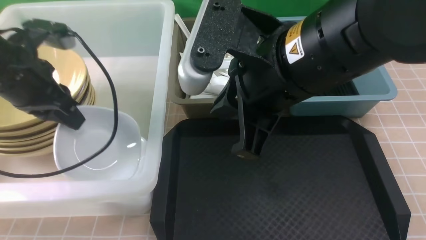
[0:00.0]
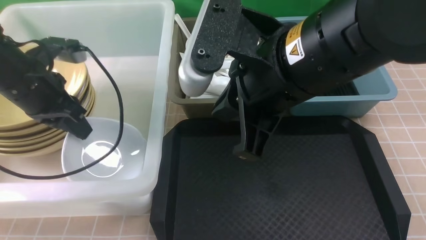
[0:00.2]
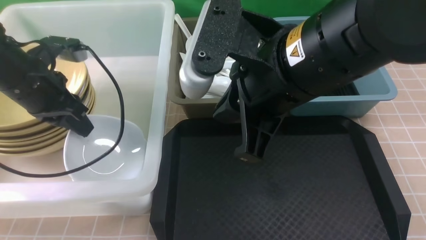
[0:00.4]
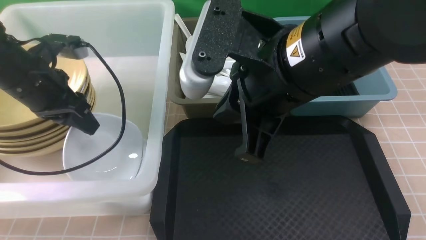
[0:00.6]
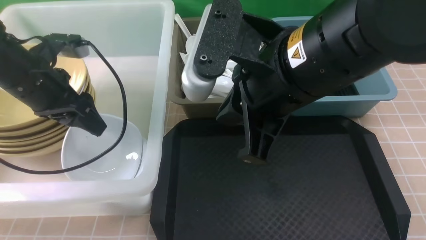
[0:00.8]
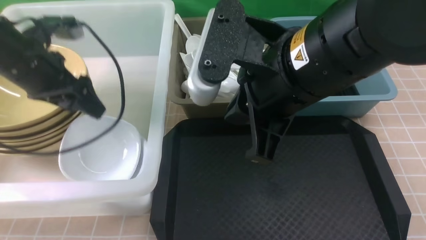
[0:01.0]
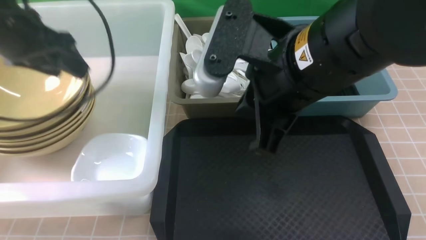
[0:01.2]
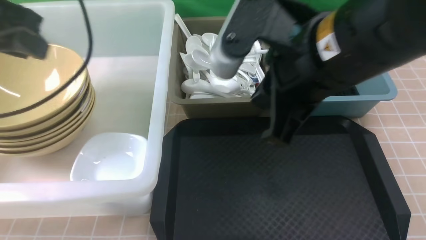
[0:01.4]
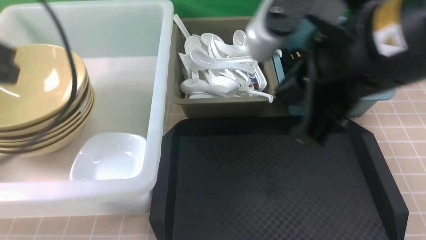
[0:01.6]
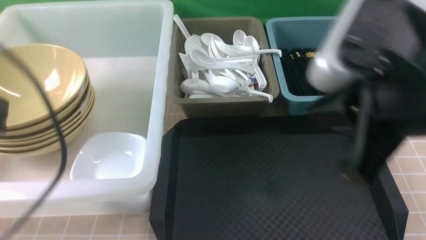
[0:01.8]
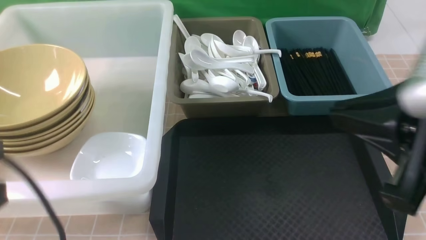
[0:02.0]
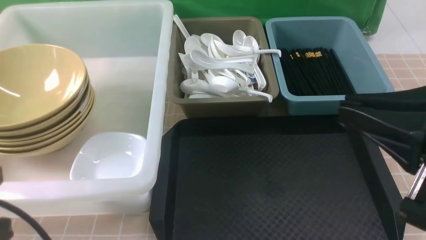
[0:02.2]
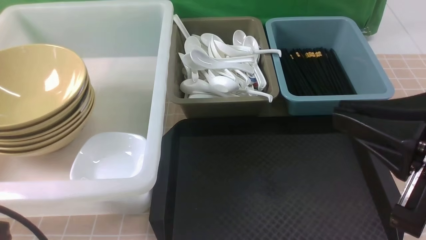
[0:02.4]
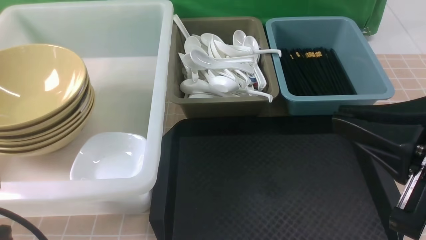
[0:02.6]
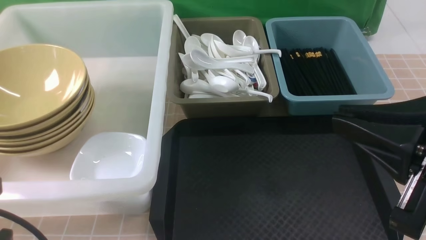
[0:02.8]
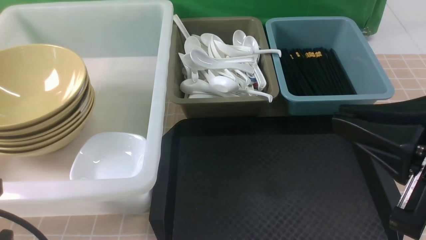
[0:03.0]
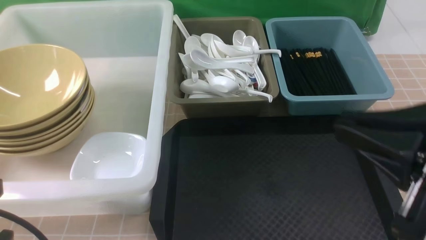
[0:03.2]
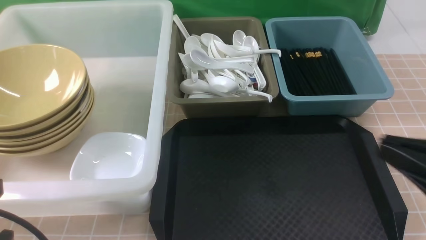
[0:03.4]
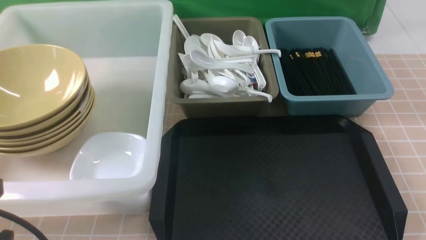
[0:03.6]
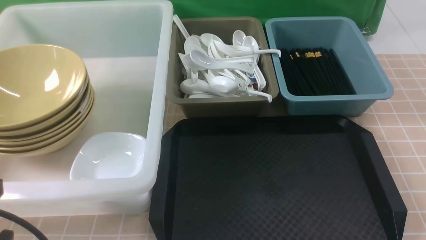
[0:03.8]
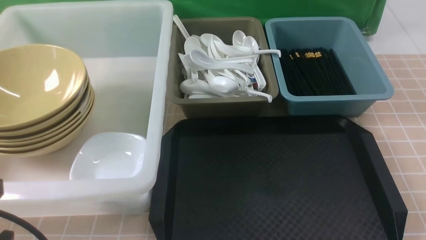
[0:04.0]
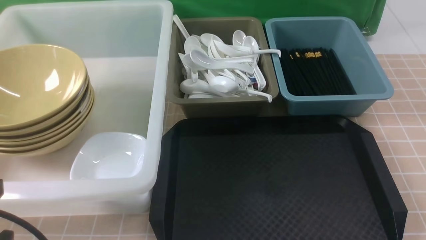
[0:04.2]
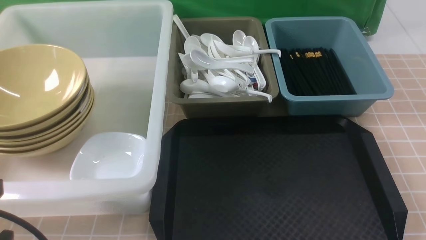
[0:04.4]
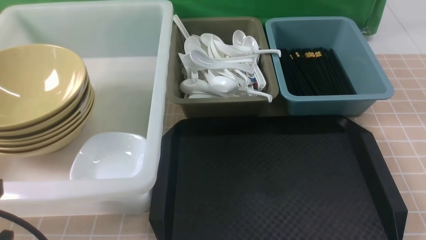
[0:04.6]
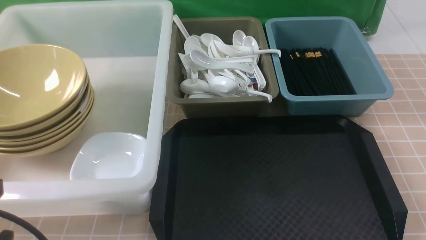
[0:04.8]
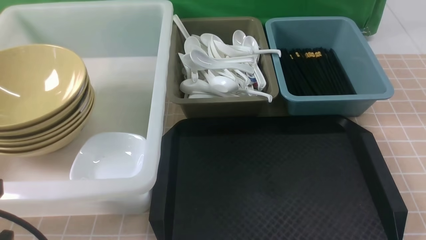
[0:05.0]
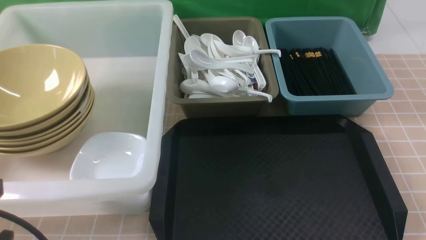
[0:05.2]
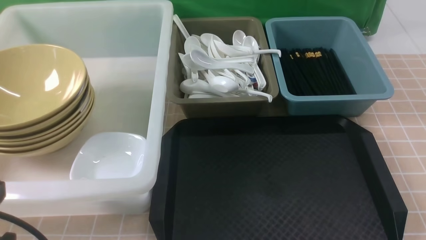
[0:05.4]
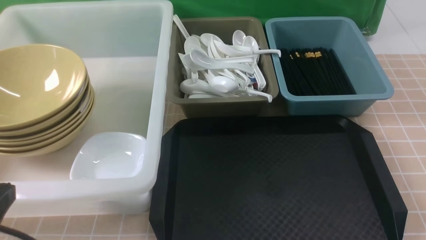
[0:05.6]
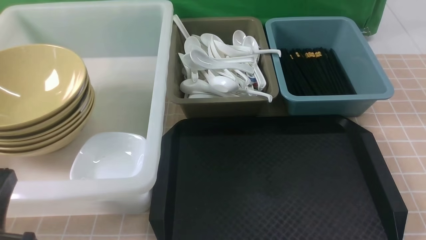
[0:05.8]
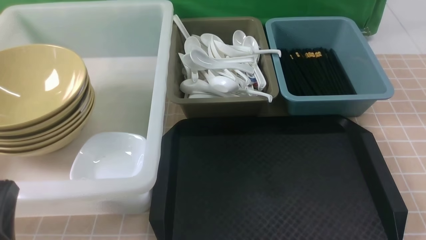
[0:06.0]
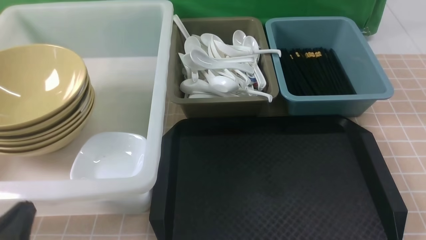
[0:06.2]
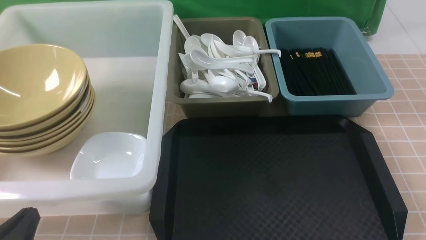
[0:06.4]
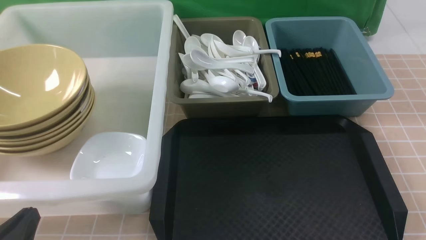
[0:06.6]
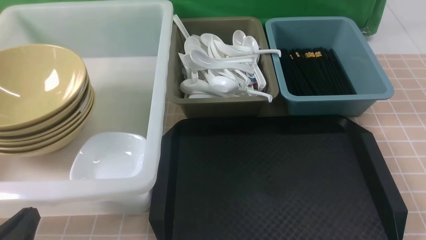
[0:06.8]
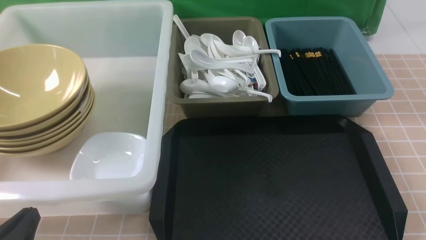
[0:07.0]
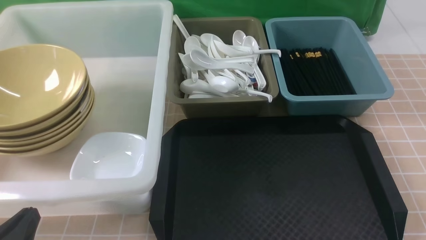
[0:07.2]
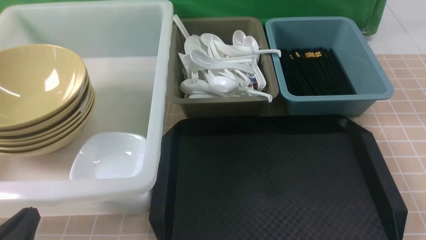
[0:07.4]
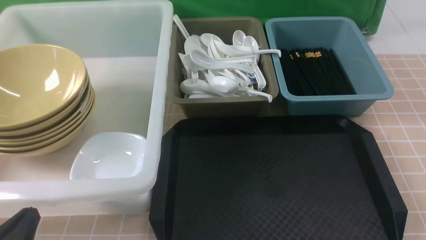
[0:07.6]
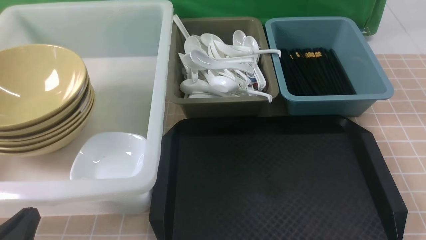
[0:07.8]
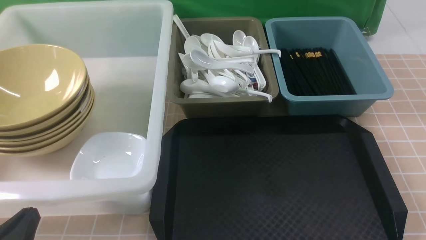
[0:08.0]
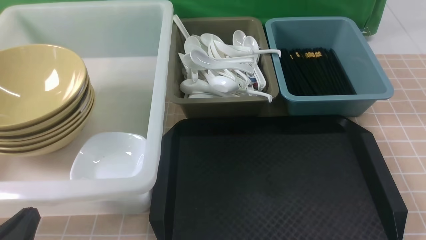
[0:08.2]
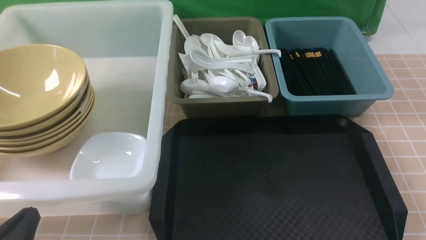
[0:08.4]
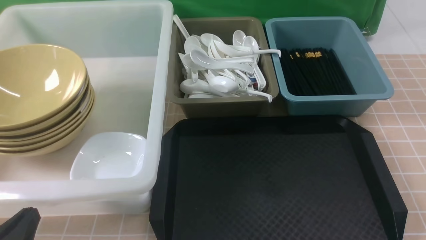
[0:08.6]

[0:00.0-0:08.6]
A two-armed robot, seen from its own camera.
Task of the whole recording: on brown table put chopsticks spoon bowls plates into blue grey white boxes.
Step, 0:00.0 to 0:01.4: use the left arm to put the plate into the large storage box on the left.
0:00.0 to 0:01.4: The left gripper heads upward, covering about 10 cm, and opens, then closes again.
0:01.4 to 0:02.8: The right gripper is displaced backward and to the right by some 15 cm. Meanwhile the left gripper travels backward and downward by roughly 20 cm.
0:02.8 to 0:04.4: The right gripper shifts approximately 20 cm downward and to the right.
0:04.4 to 0:05.8: The left gripper moves downward, roughly 5 cm.
0:05.8 to 0:07.2: The left gripper goes about 5 cm downward.
0:07.2 to 0:08.6: The two grippers keep their place.

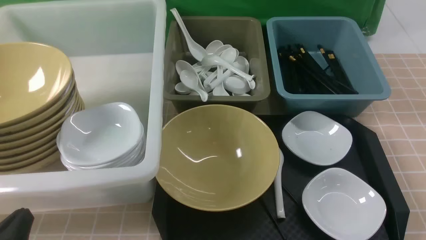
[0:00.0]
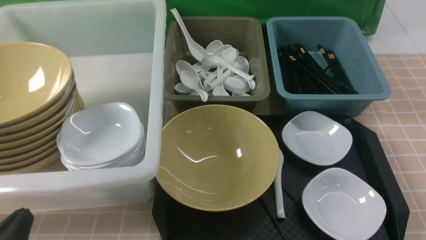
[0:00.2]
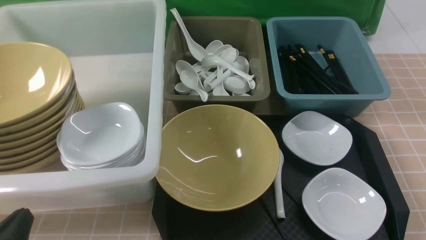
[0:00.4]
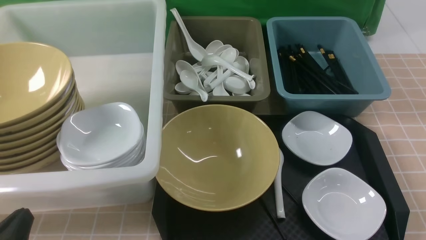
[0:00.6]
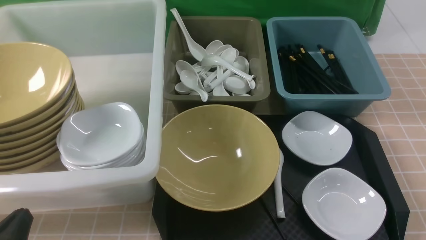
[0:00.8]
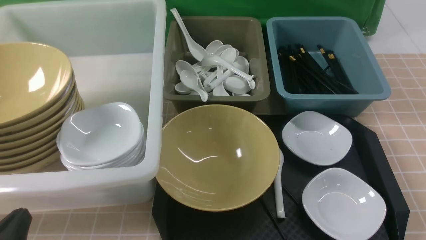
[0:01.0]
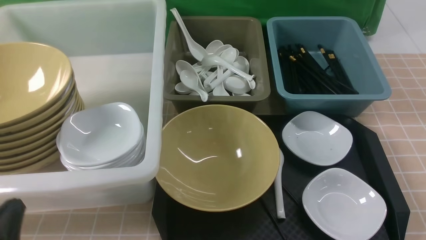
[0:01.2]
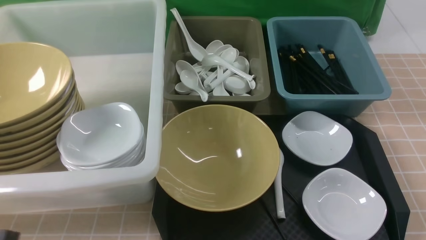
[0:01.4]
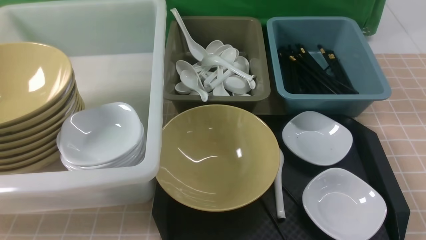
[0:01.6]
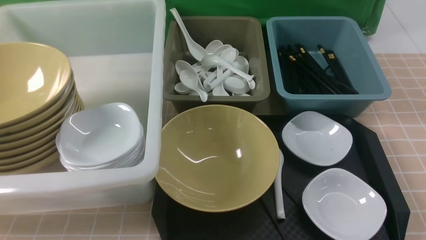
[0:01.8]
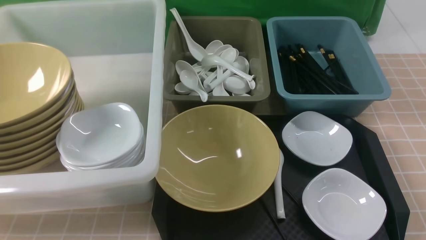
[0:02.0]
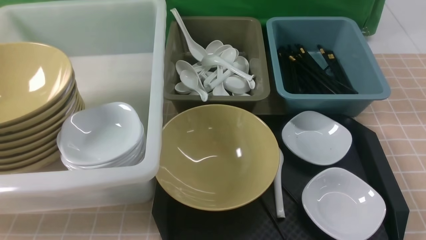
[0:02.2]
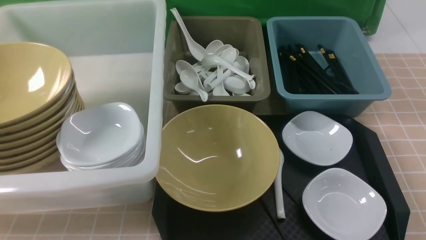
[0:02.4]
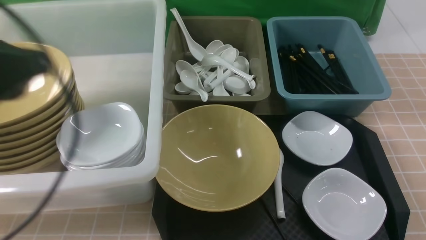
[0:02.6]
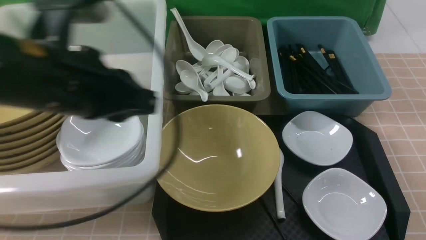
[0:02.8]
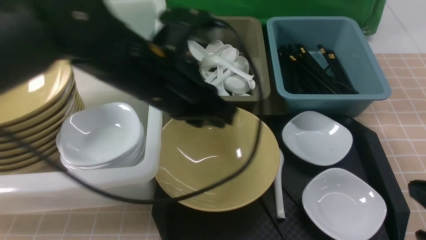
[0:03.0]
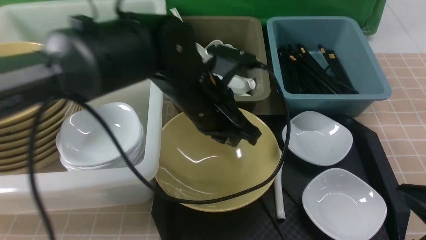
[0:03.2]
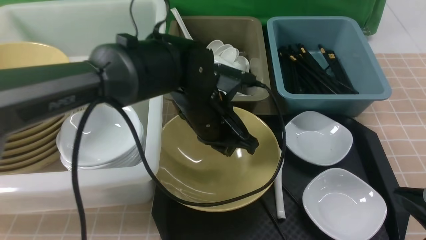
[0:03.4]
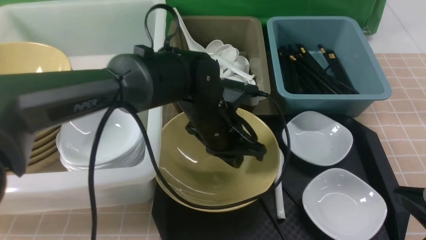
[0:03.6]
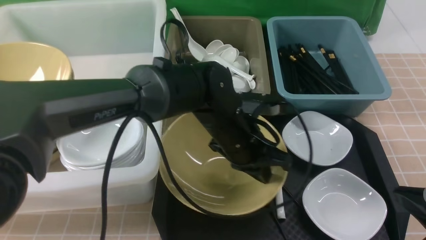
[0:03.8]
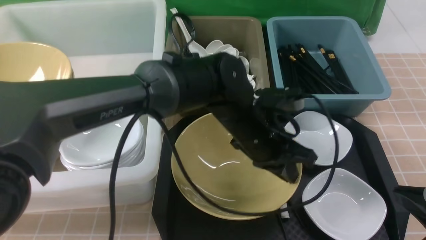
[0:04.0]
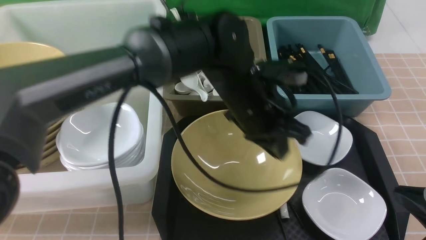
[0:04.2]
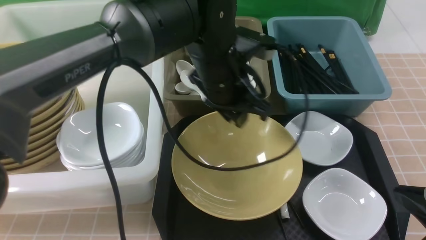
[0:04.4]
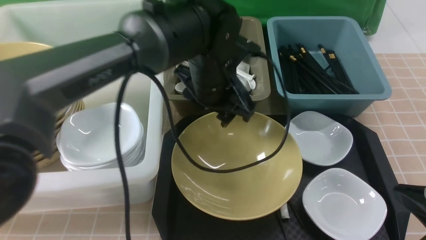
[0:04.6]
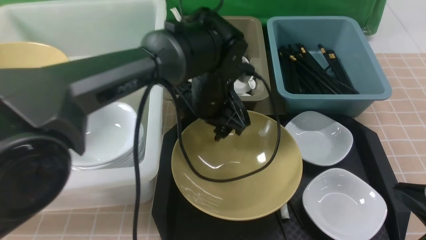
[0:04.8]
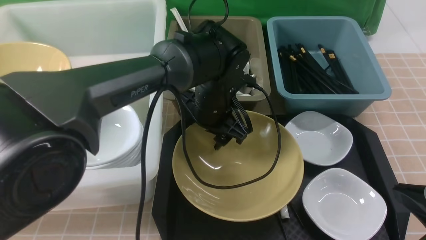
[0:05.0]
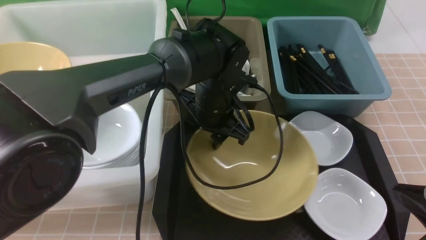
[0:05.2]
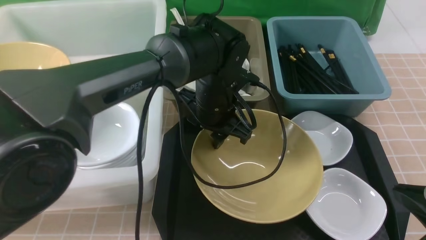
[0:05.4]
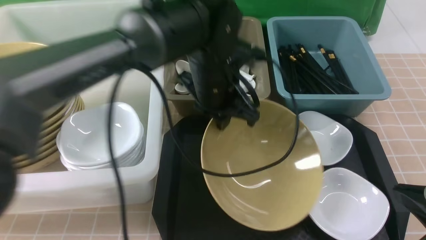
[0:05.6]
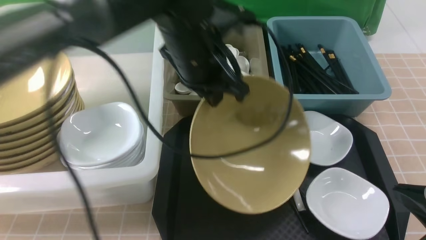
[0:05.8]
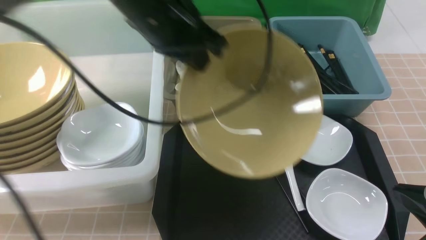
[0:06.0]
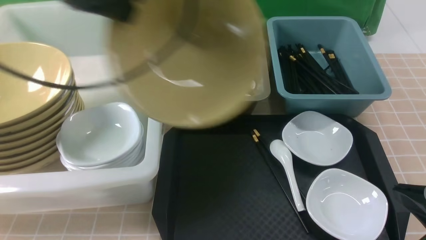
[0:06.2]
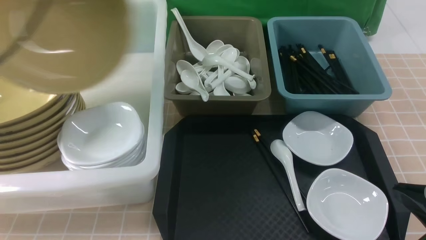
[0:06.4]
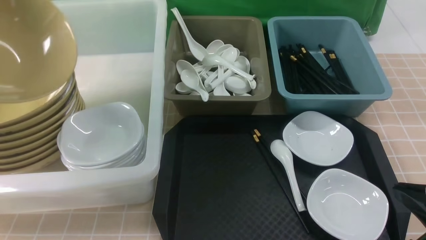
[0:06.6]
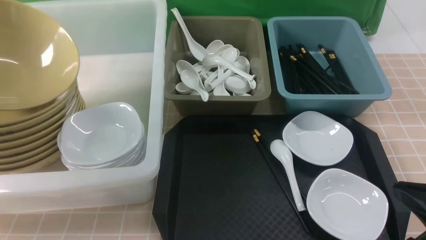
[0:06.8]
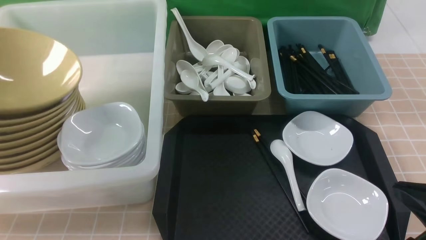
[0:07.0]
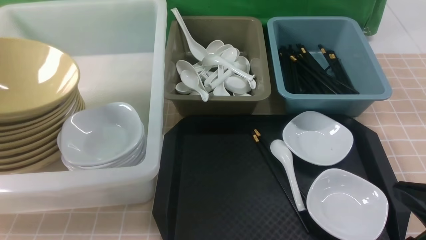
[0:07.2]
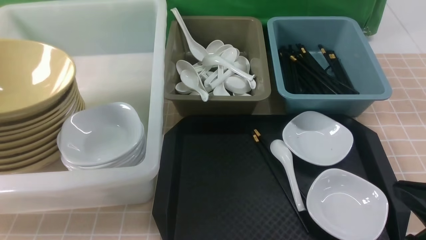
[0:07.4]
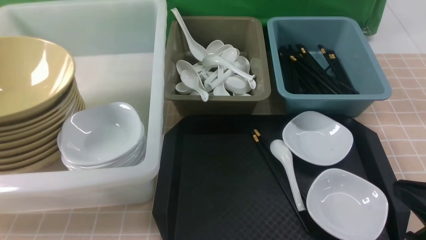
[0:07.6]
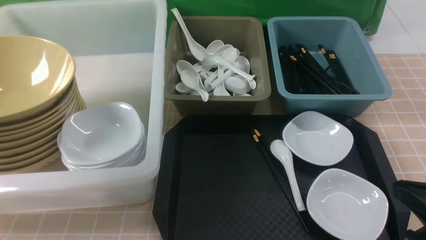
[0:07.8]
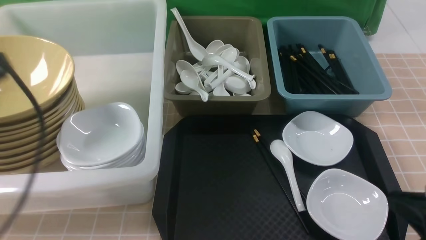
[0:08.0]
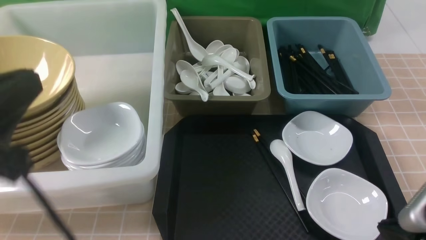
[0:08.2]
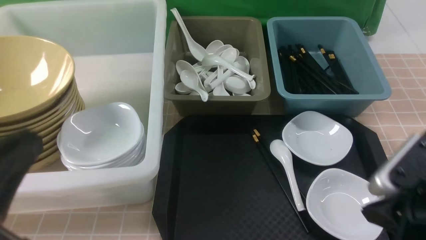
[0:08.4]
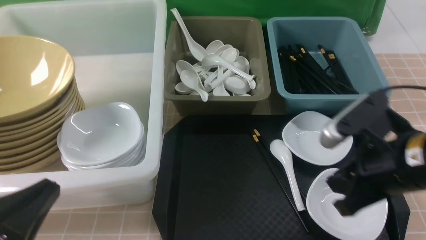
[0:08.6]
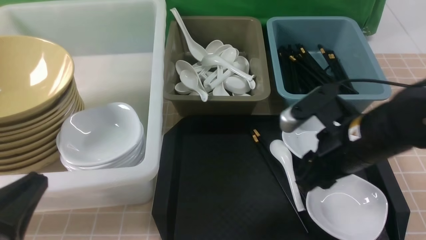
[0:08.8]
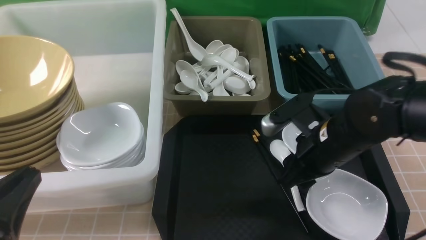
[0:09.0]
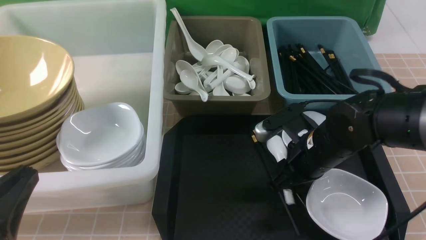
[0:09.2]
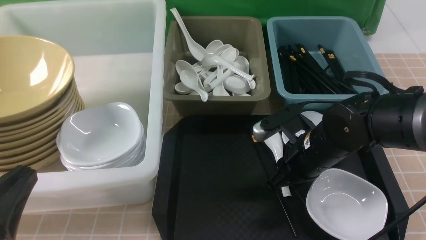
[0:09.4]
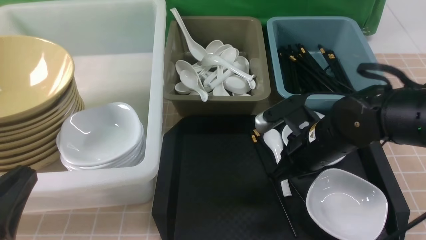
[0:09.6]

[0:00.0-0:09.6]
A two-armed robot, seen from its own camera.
Task of the whole recording: on brown table put chopsticks spoon bowls plates into blue grey white boxes.
Step, 0:00.0 to 0:05.8: use the left arm to grab the yellow noodle bowl on the left.
Step, 0:06.0 to 0:07.8: use the left arm to put the noodle bowl into the large storage box on the left.
0:00.0 to 0:01.6: The left gripper travels upward by approximately 10 cm.
0:01.6 to 0:03.2: The left gripper moves forward and to the right, approximately 35 cm, while the right gripper goes approximately 10 cm forward, goes upward and returns, about 10 cm each way, and closes up.
0:03.2 to 0:04.8: The left gripper travels forward by about 5 cm, and opens its fingers.
0:04.8 to 0:06.4: The left gripper travels to the left and upward by about 35 cm, and closes.
0:06.4 to 0:08.0: The left gripper is displaced backward and downward by roughly 15 cm, moves roughly 10 cm to the left and comes back, and opens, then closes again.
0:08.0 to 0:09.6: The right gripper goes roughly 20 cm forward and to the left, and opens and closes again. The left gripper moves downward and backward, some 15 cm.
